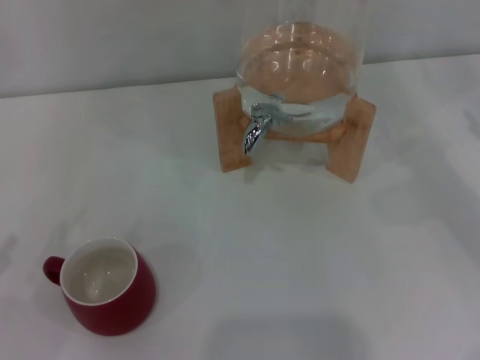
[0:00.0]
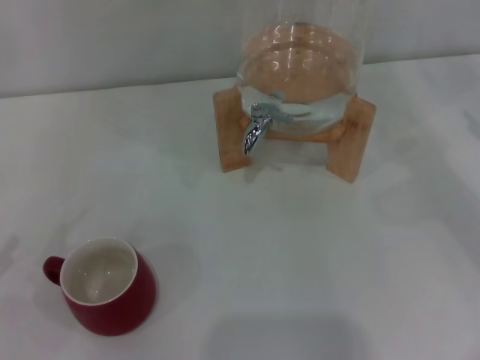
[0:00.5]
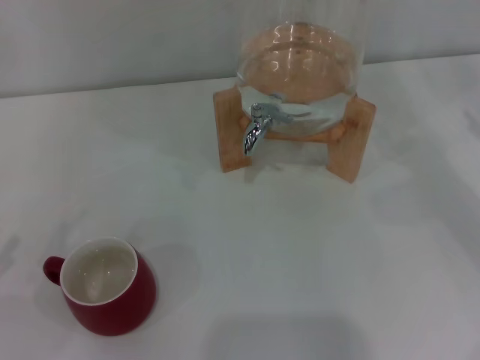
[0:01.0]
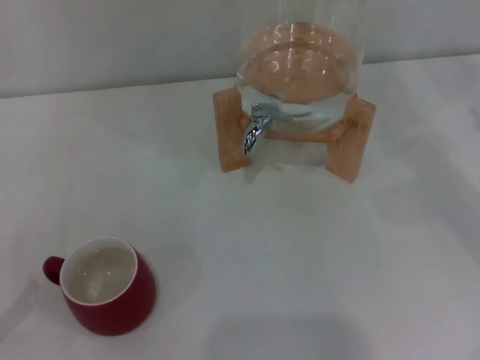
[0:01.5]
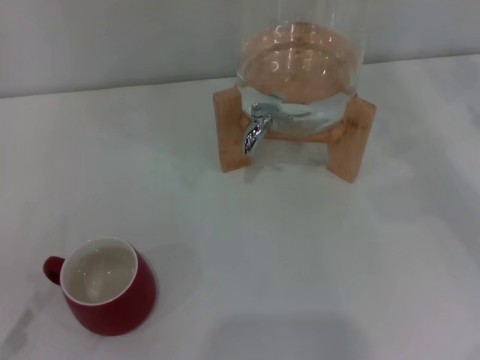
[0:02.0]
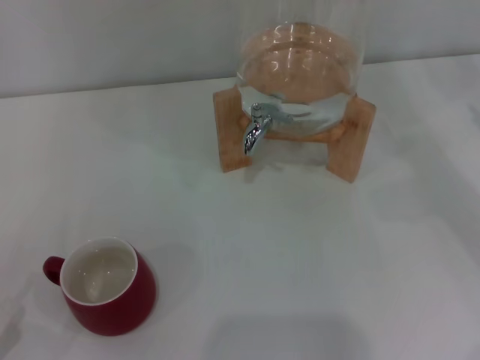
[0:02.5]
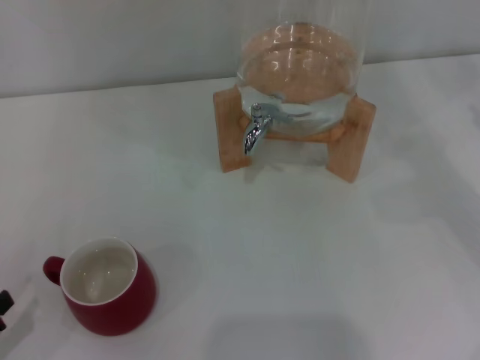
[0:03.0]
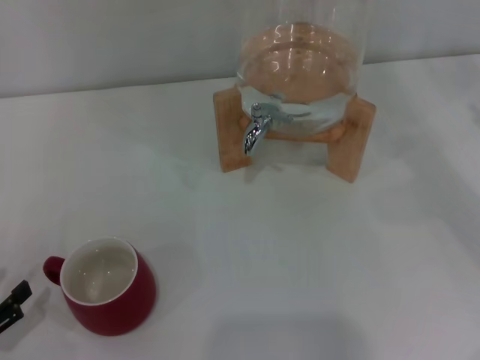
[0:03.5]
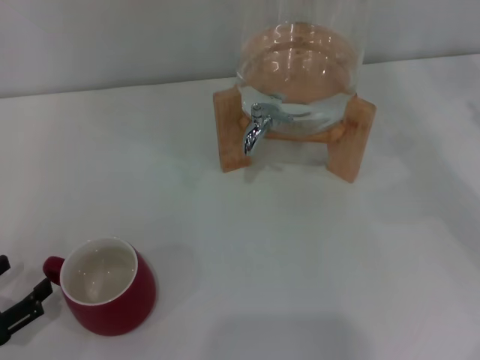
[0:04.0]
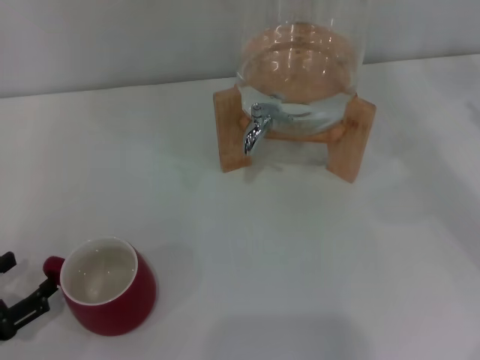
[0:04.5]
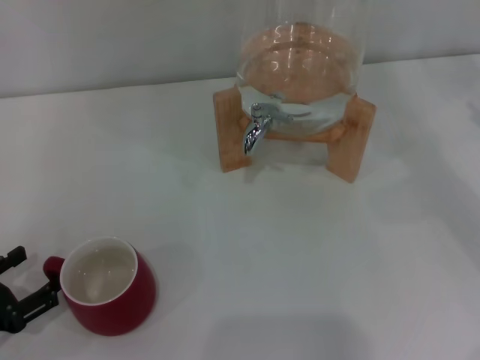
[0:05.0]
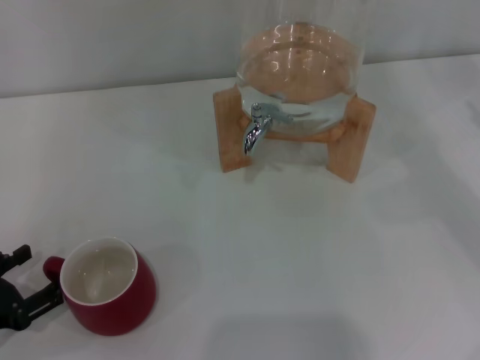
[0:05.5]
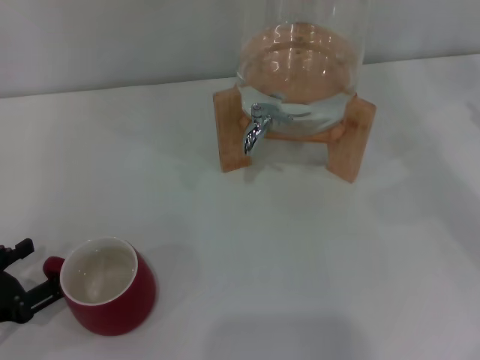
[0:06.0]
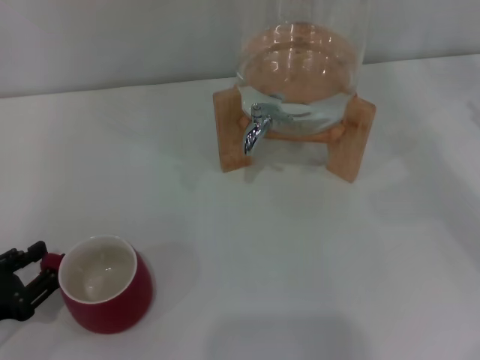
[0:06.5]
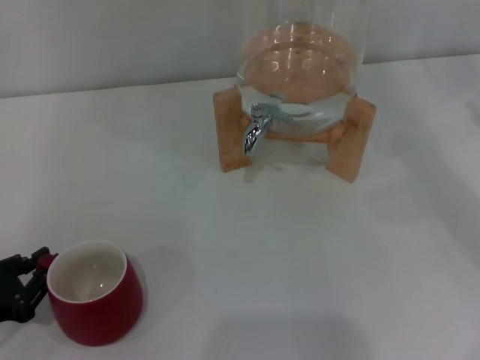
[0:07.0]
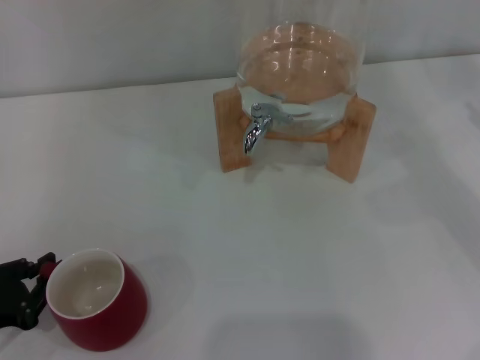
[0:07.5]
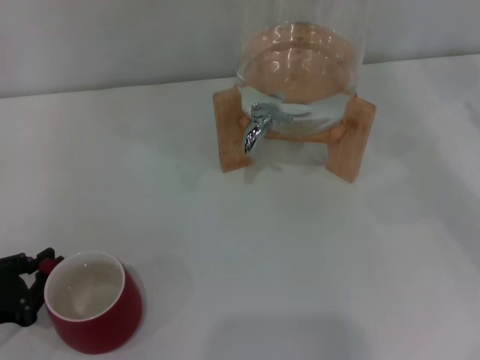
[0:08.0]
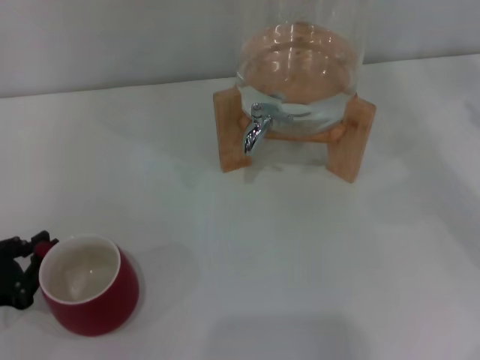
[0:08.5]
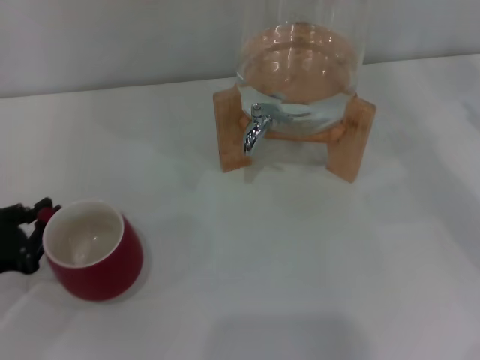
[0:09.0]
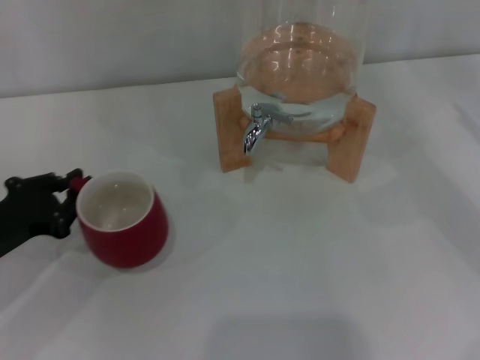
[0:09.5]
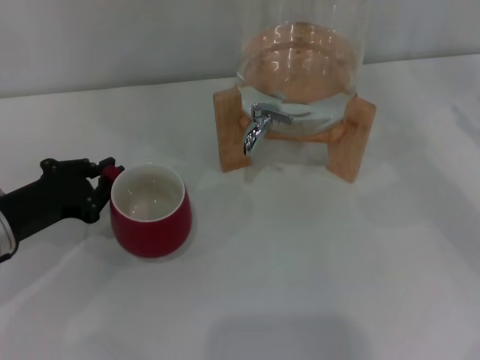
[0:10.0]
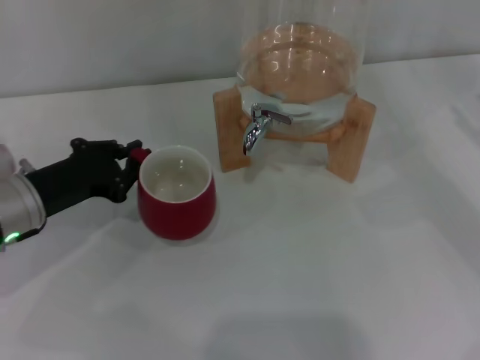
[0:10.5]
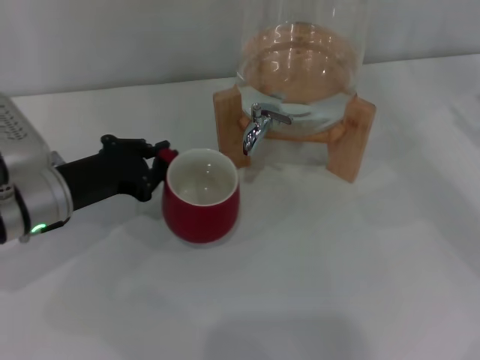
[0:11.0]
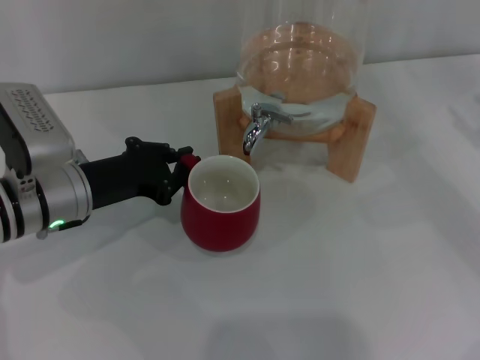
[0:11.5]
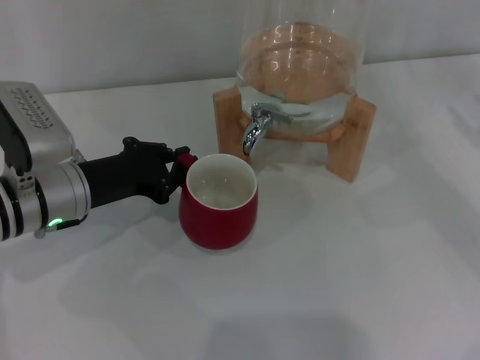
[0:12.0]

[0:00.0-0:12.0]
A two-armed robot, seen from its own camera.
Task of the whole recording: the left gripper pick up the red cup and place it horizontally under the faucet, the right gripper turn on the faucet to fill the cup, and then turn off the faucet.
0:02.0 to 0:04.0: The left gripper shifts roughly 5 cm forward.
0:04.0 to 0:06.0: There are only small adjustments of the grippers.
0:06.0 to 0:08.0: The left gripper closes up.
0:08.0 to 0:10.0: The left gripper is displaced forward and to the right by about 10 cm.
0:10.0 to 0:12.0: The left gripper is displaced to the right by approximately 5 cm.

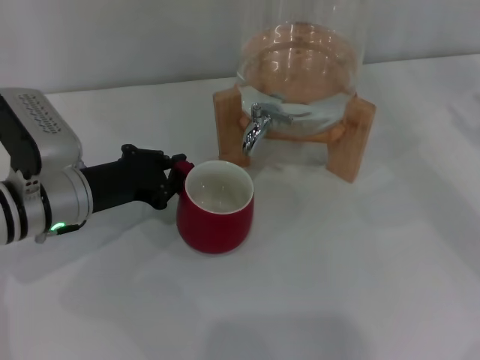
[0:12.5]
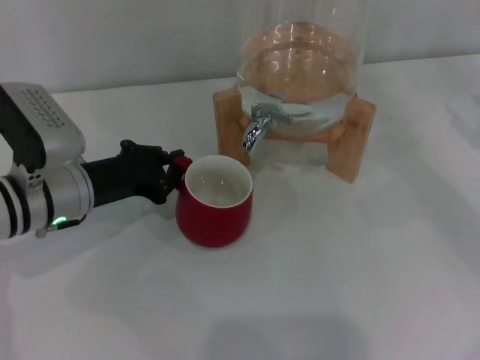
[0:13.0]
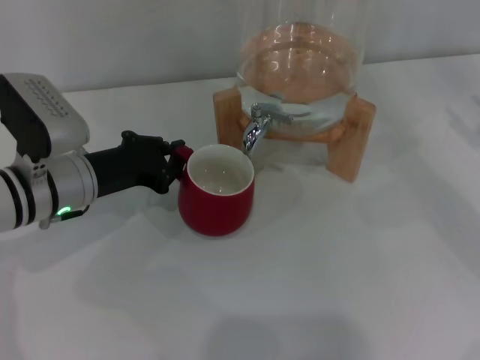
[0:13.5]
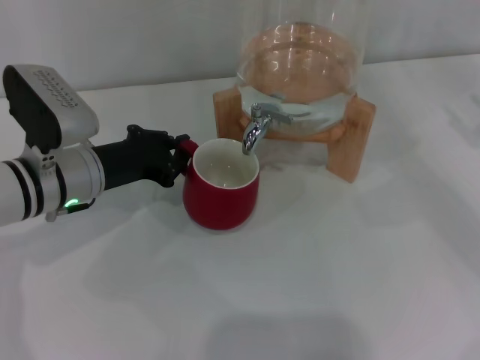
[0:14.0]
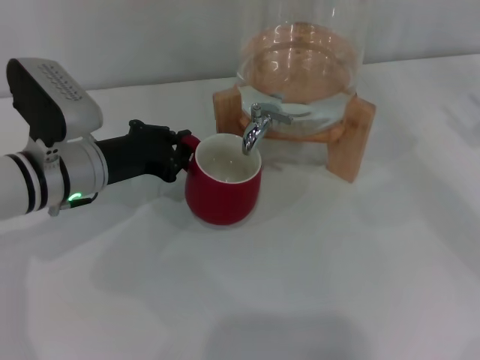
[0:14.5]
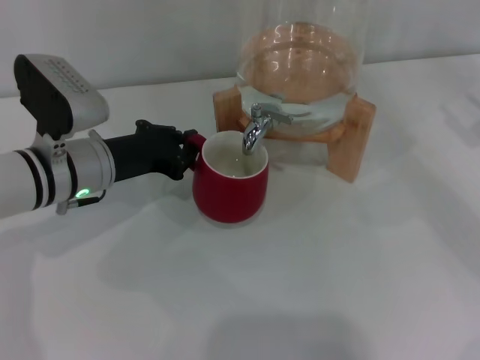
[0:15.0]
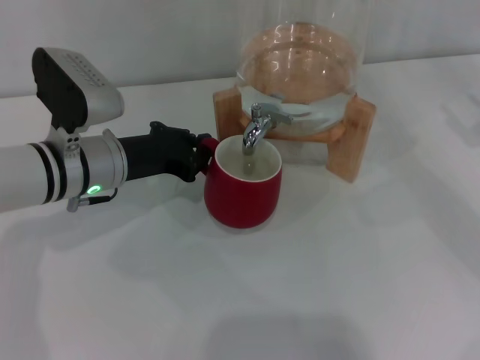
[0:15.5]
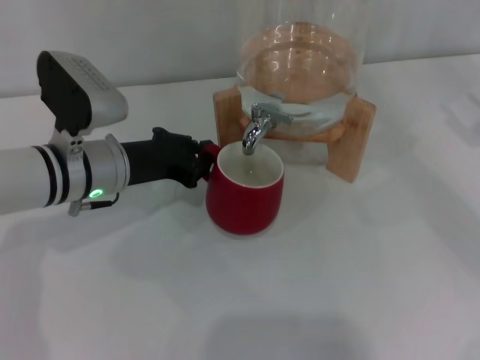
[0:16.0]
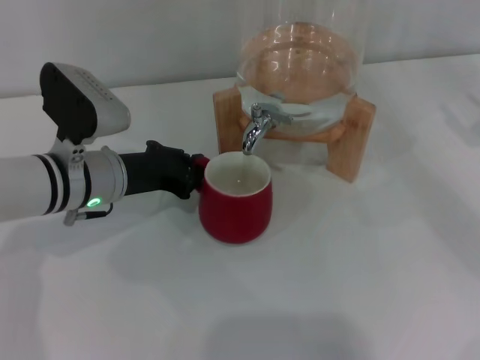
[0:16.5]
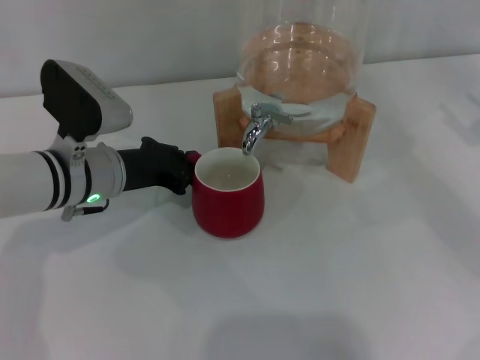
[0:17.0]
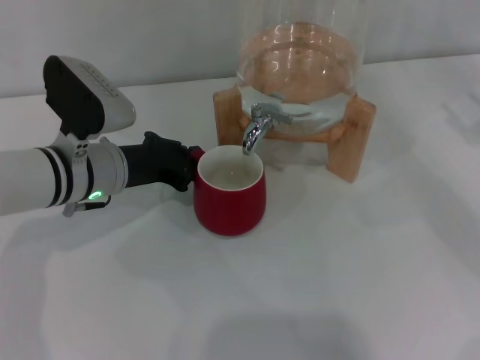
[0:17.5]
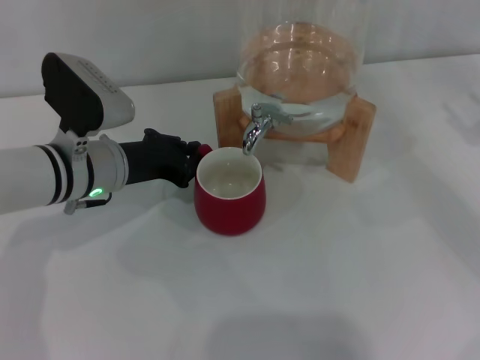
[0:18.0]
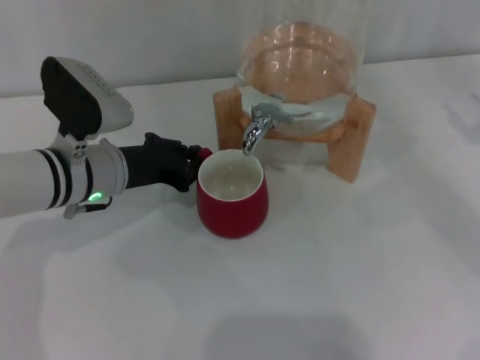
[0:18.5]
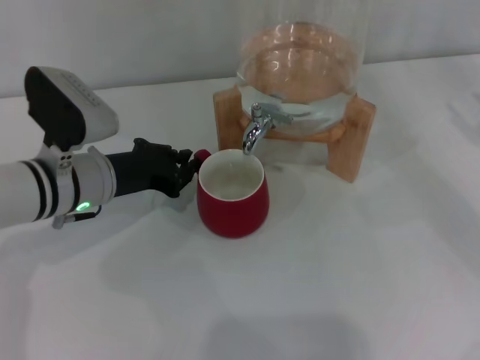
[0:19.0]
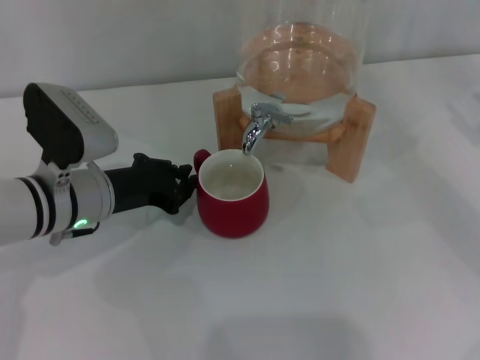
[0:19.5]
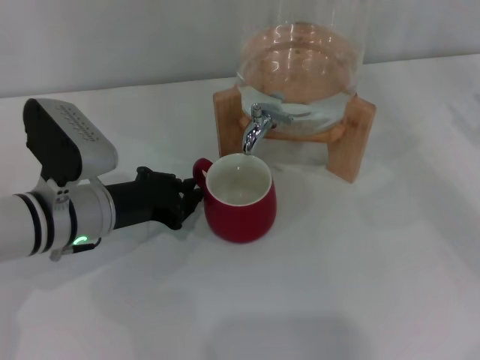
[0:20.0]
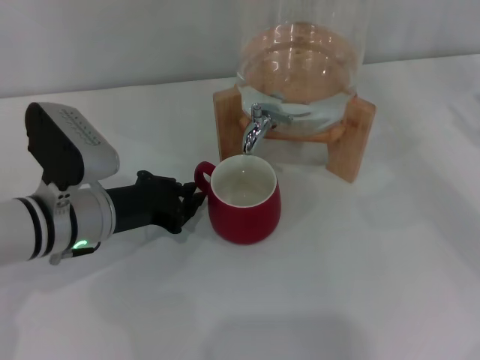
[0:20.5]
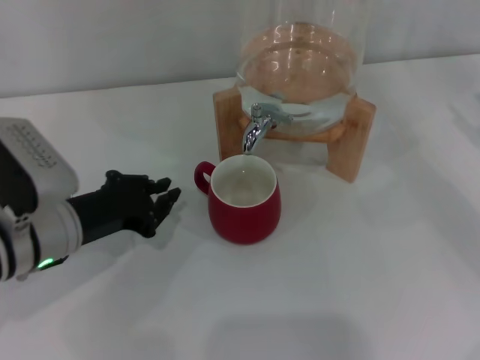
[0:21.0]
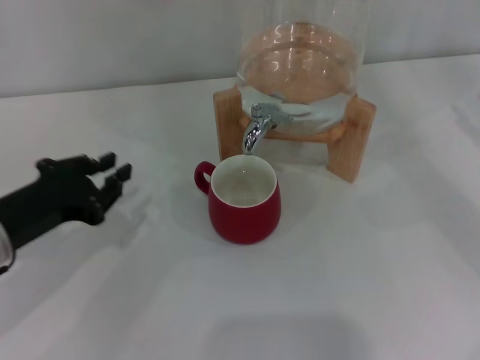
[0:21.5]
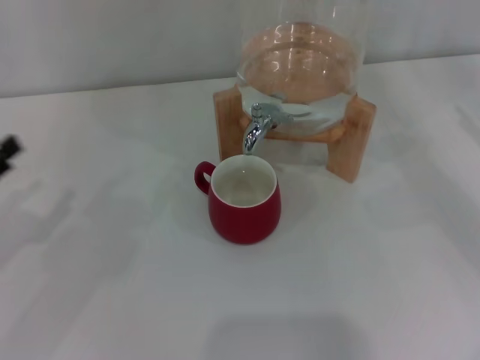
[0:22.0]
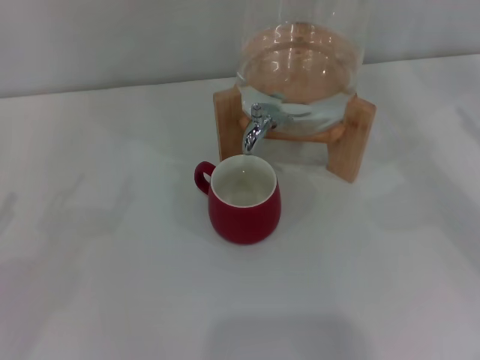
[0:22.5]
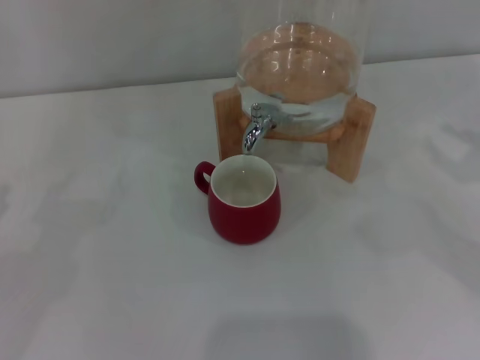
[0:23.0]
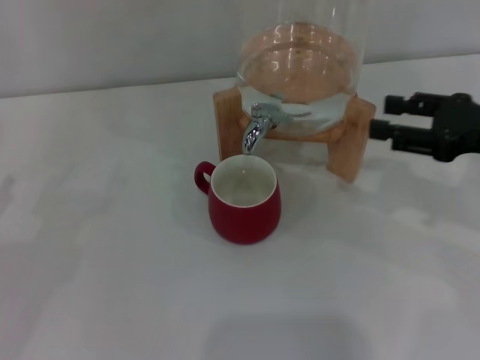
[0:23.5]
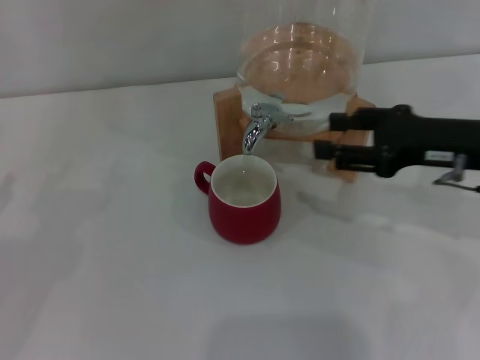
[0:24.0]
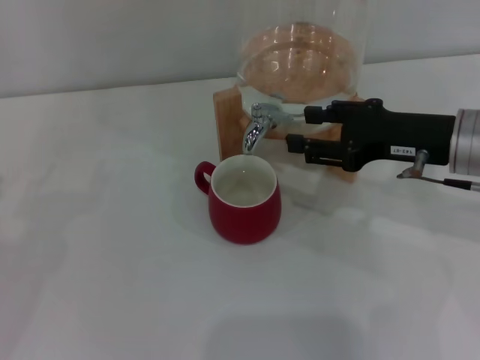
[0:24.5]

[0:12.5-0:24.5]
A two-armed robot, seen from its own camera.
Task of the whole recording: the left gripper pick up the red cup and place it horizontally under the faucet, the right gripper turn on the faucet to fill the cup, and then turn off the faucet.
Step, 0:12.5 to 0:21.0: Move the cup beneath the water dispenser nozzle with the left gripper.
0:12.5 to 0:16.5: The grippers stay close to where they were, moving slightly.
0:16.5 to 0:18.5: Both grippers stay about where they are.
0:18.5 to 0:20.5: There are only small adjustments of the grippers.
0:20.5 to 0:22.5: The left gripper goes roughly 25 cm to the left and backward, and opens its fingers.
0:22.5 to 0:24.5: The right gripper shifts about 15 cm to the left.

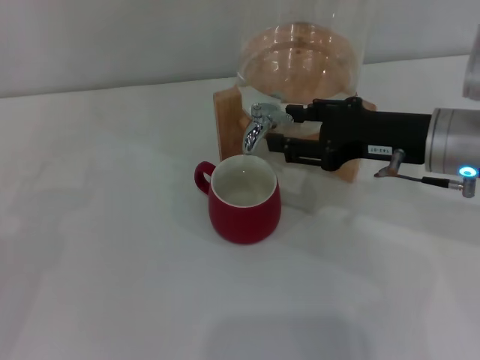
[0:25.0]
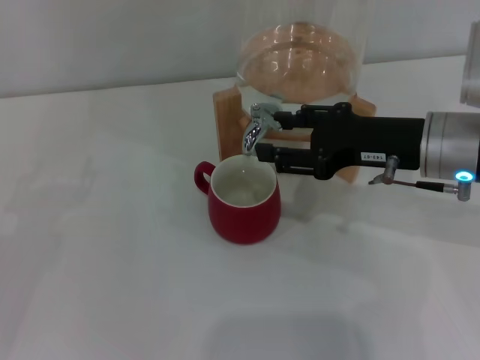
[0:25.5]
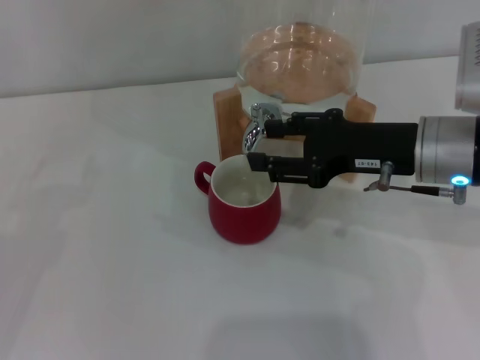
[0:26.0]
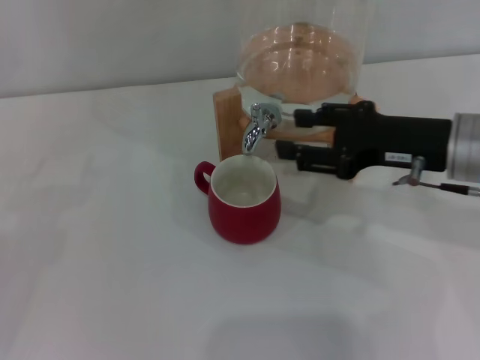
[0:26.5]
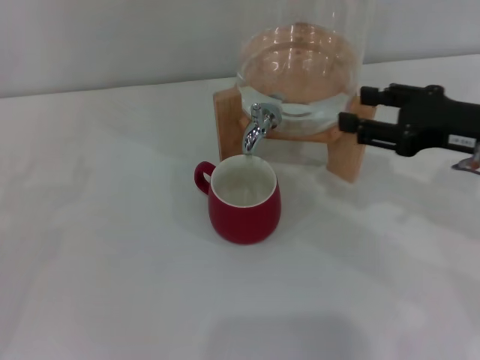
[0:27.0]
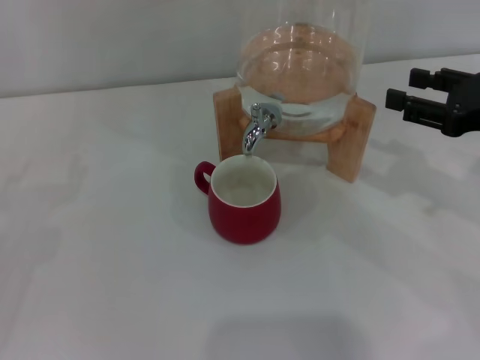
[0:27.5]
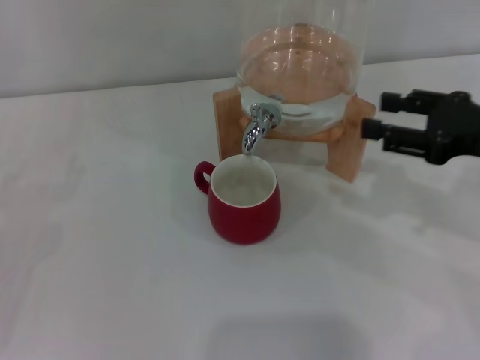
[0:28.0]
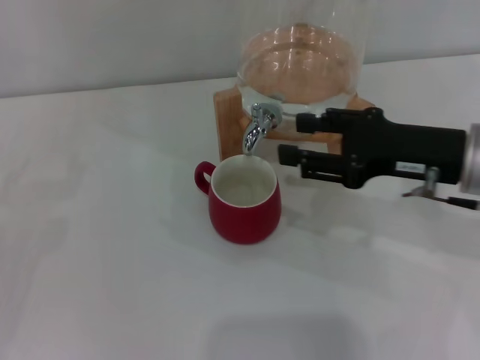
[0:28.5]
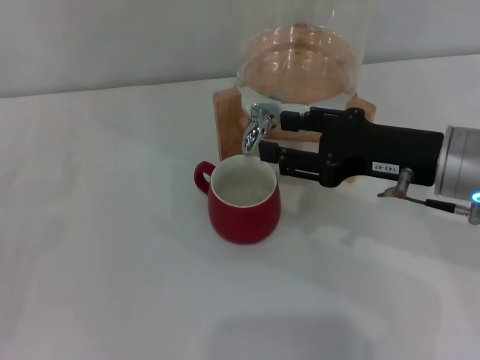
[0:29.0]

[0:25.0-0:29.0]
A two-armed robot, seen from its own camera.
Task of the whole recording: the left gripper pick up the red cup and place it horizontally under the faucet, the right gripper turn on the faucet to fill the cup, and then turn off the faucet.
0:25.0 to 0:27.0: The right gripper heads to the right, covering roughly 5 cm.
0:27.0 to 0:29.0: The right gripper travels to the left by about 5 cm.
